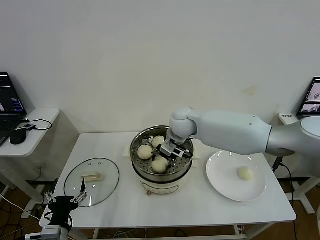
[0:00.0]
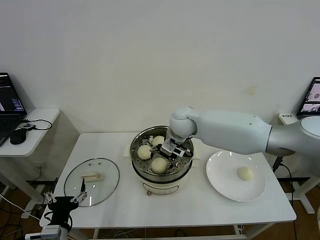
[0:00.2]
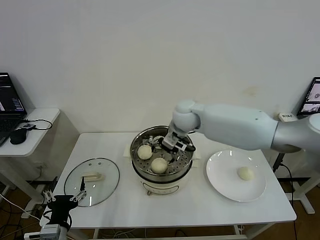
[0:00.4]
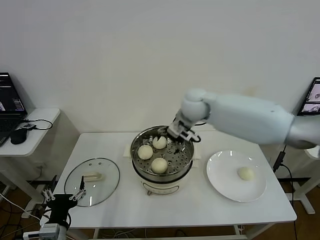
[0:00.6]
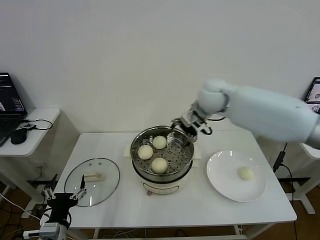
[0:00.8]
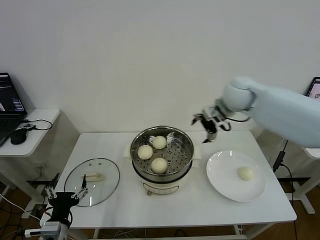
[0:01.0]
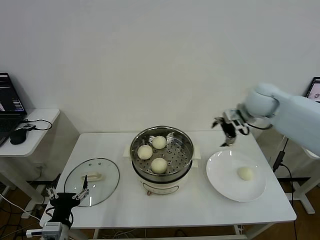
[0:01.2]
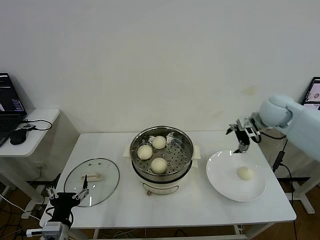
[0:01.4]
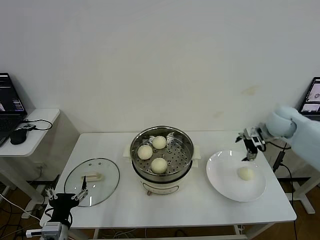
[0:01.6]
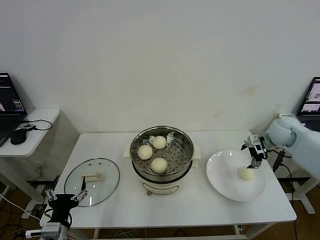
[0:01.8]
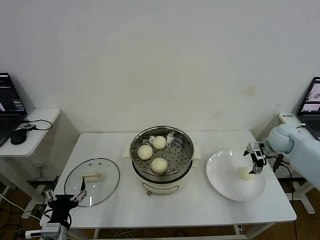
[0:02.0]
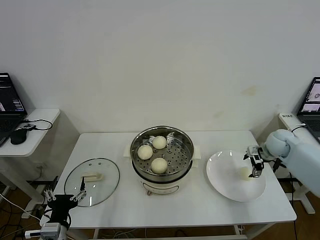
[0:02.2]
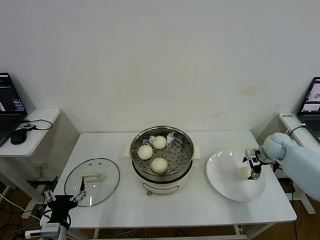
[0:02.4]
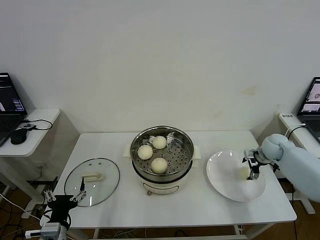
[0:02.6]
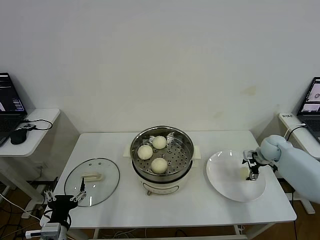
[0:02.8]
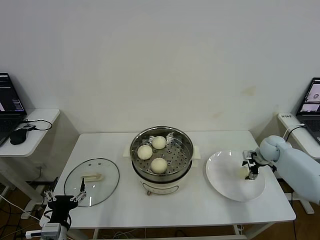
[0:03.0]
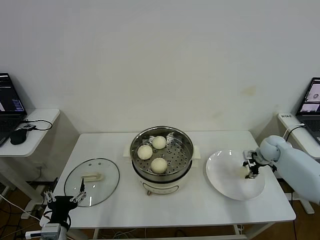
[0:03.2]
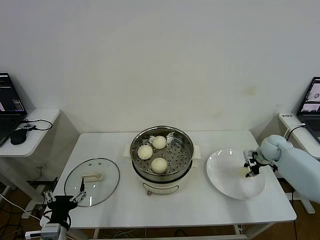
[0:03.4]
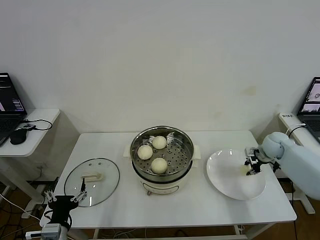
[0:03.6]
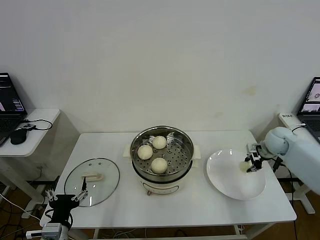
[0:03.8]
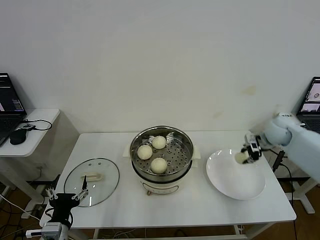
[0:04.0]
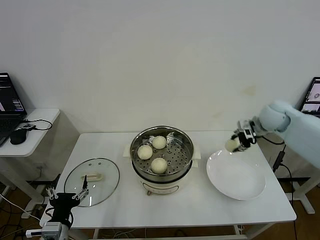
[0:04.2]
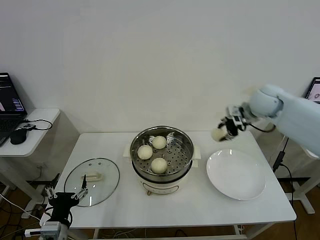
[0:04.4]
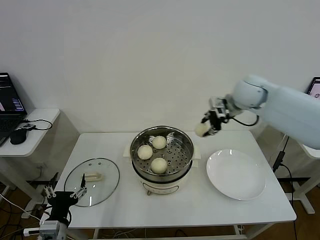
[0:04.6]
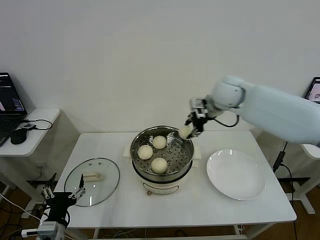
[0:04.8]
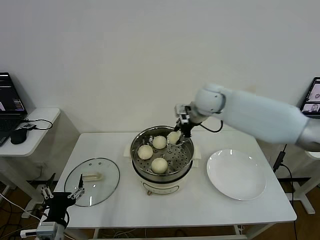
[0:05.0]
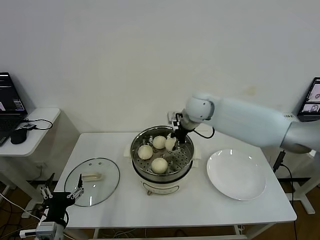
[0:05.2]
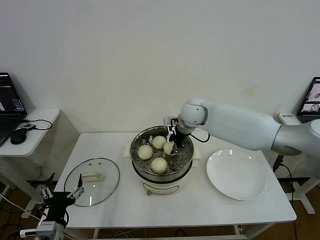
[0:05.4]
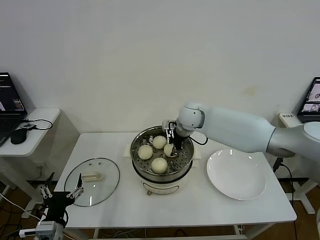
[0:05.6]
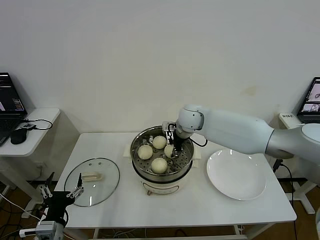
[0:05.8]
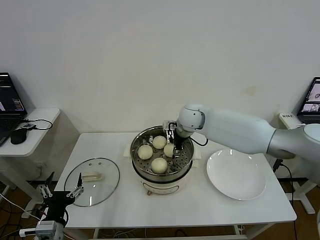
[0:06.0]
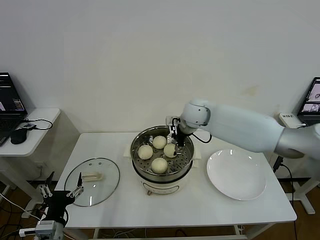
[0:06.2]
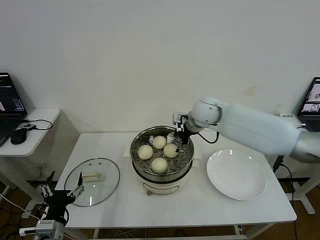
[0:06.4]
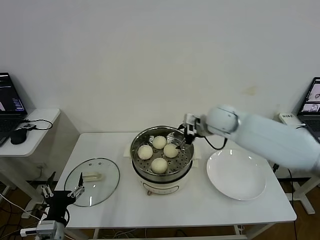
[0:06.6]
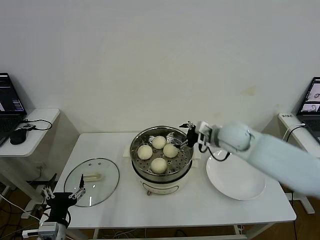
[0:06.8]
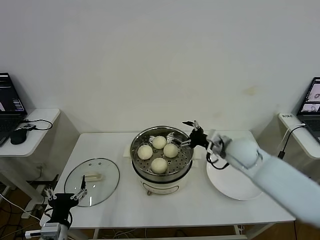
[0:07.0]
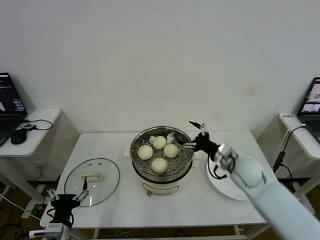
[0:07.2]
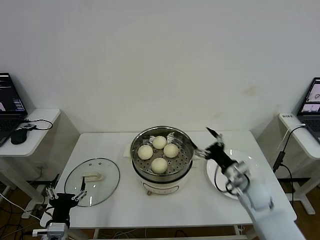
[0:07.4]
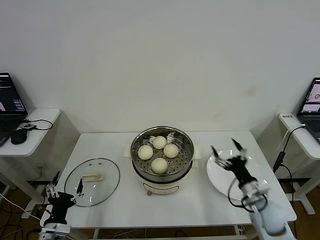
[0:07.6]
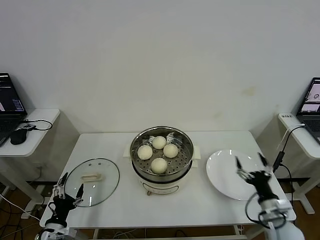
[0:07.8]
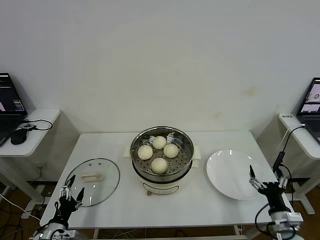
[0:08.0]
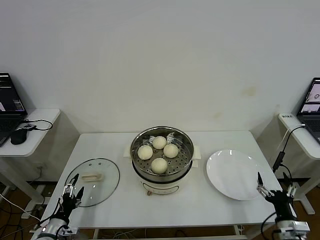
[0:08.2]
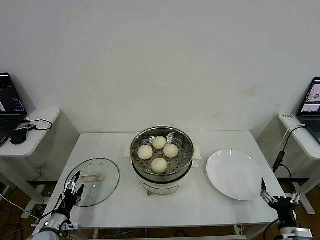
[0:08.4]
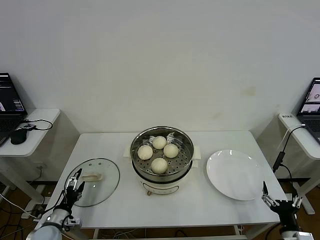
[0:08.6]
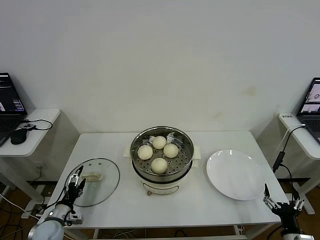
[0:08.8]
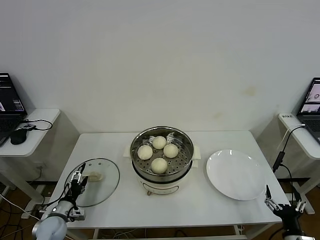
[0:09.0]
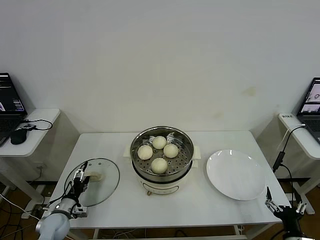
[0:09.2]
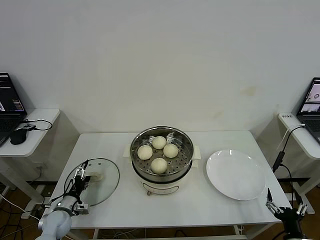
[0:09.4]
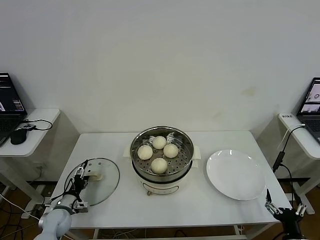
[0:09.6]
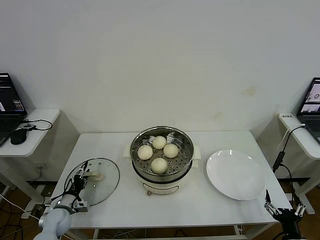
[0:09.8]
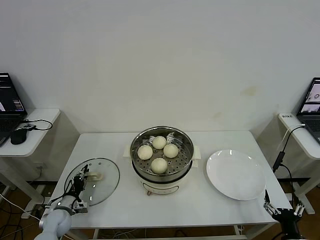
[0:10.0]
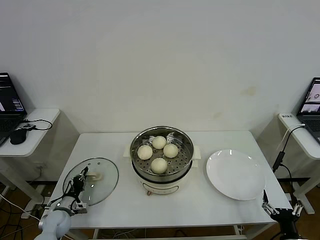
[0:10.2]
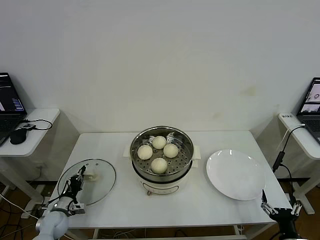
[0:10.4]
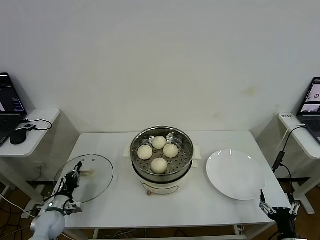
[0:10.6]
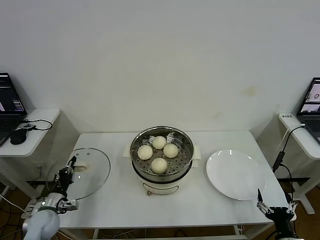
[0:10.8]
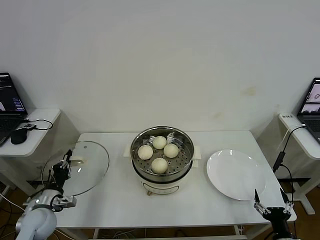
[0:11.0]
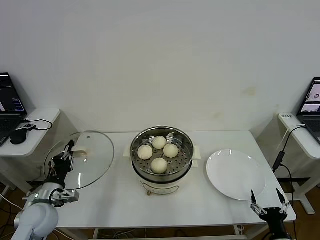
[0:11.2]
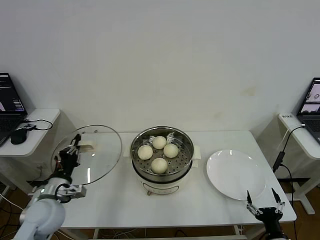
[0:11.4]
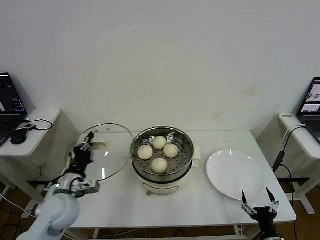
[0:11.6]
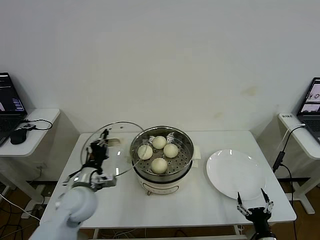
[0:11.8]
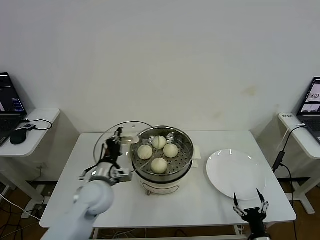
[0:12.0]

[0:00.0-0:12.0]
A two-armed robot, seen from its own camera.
Step, 0:00.4 to 0:03.2: Grasp the baozi in the plate with right gripper.
Step, 0:03.4 to 0:06.0: Place the baozi on the steamer with right gripper.
Step, 0:06.2 to 0:10.4: Grasp the pot lid with left gripper.
0:00.0 to 0:01.6: The right gripper travels to the right by some 35 cm, and opens its fingers.
0:01.6 to 0:03.0: The right gripper is displaced downward by approximately 15 cm, and closes up.
0:03.0 to 0:04.4: The right gripper heads upward and to the left, covering some 25 cm, and closes.
0:04.4 to 0:06.0: The right gripper is displaced to the left and downward by about 20 cm, and opens.
0:06.0 to 0:07.6: The right gripper shifts some 40 cm backward, to the right and downward. The left gripper is displaced downward by some 5 cm.
0:07.6 to 0:09.0: The right gripper travels backward and to the right by about 15 cm. Meanwhile the left gripper goes about 15 cm forward, downward and to the left.
0:09.0 to 0:10.4: The left gripper closes.
0:10.4 to 0:12.0: The left gripper travels upward and to the right by approximately 30 cm. Meanwhile the right gripper goes some 5 cm to the left.

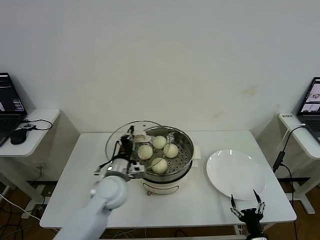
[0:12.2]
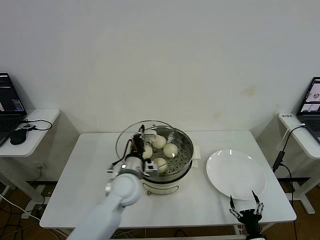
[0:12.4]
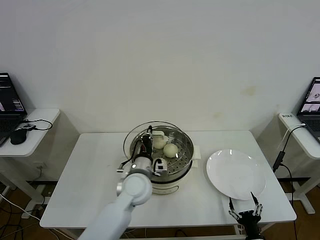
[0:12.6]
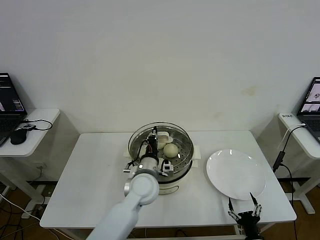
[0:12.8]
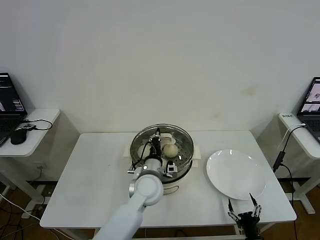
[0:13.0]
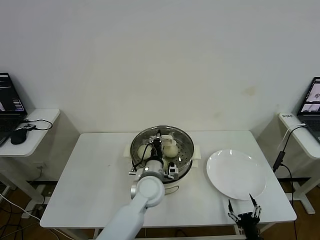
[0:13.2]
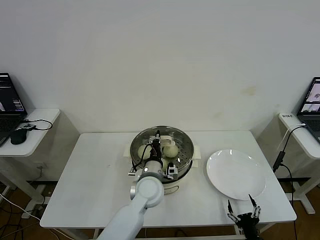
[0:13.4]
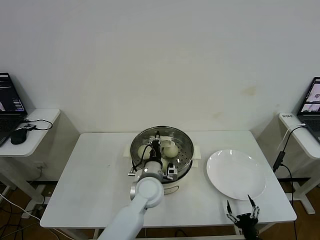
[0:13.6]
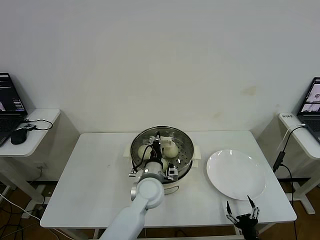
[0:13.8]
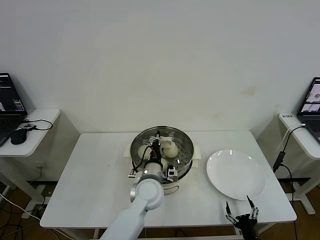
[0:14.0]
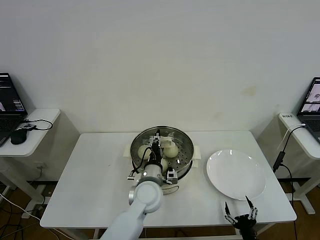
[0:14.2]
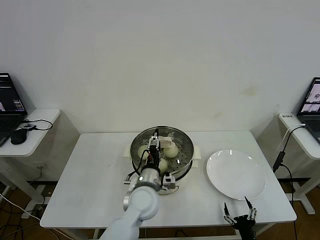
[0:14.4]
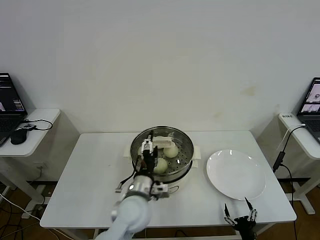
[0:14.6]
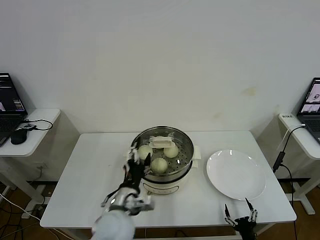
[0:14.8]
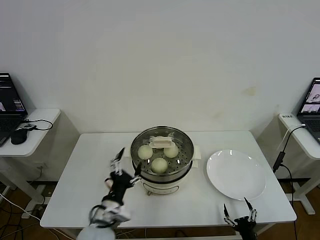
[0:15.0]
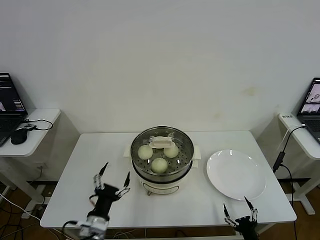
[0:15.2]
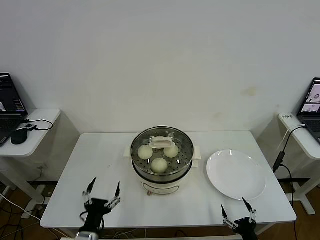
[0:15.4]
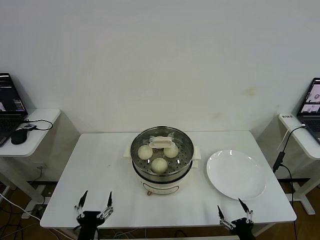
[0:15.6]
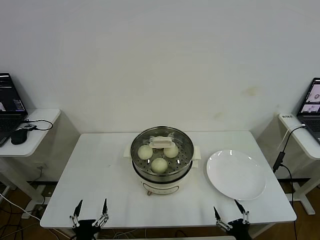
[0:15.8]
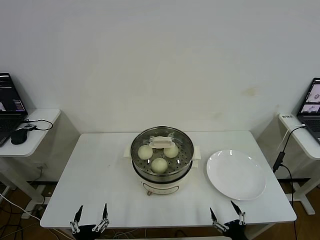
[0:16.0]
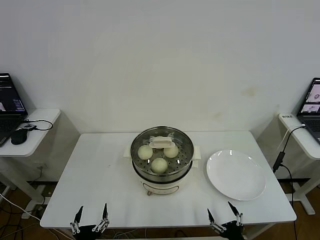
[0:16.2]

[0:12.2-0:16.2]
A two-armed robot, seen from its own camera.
Step, 0:12.2 to 0:14.0: Place the pot lid on the steamer with left gripper.
0:12.2 to 0:13.6: The left gripper moves to the right, roughly 10 cm.
0:13.6 to 0:14.8: The left gripper shifts roughly 15 cm backward and to the left, and opens.
0:14.8 to 0:16.2: The right gripper travels upward by roughly 5 cm. The left gripper goes roughly 25 cm backward, downward and to the left.

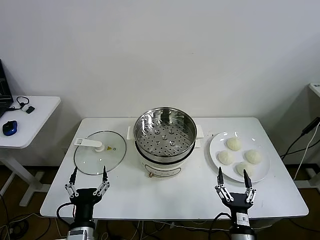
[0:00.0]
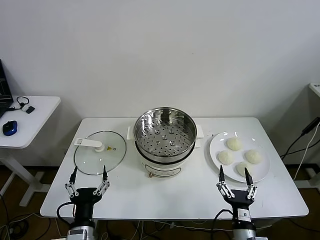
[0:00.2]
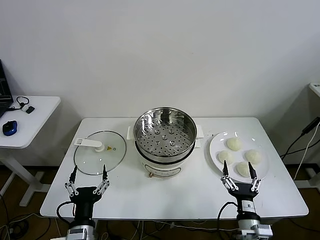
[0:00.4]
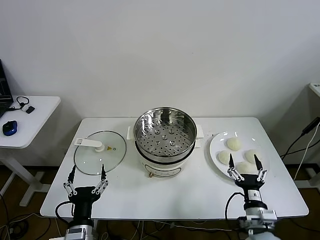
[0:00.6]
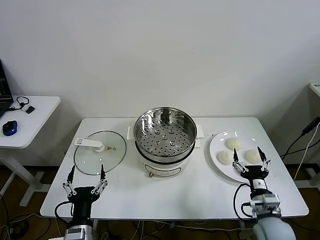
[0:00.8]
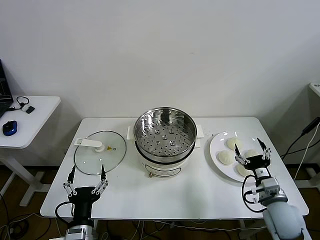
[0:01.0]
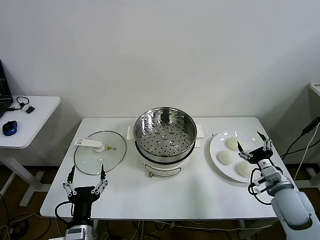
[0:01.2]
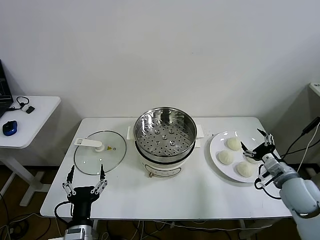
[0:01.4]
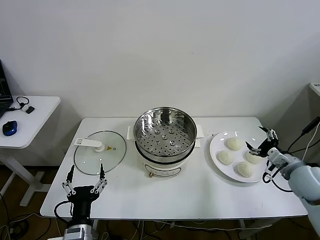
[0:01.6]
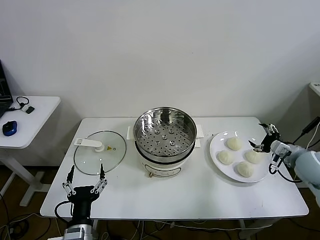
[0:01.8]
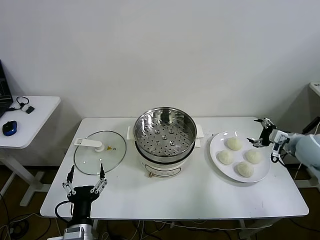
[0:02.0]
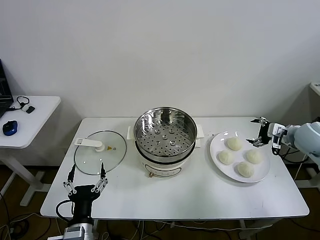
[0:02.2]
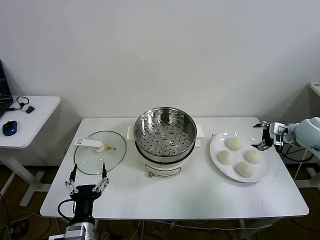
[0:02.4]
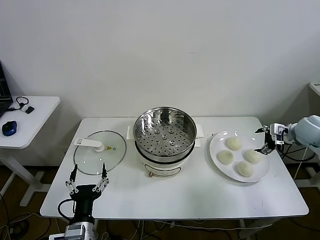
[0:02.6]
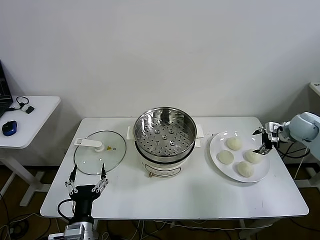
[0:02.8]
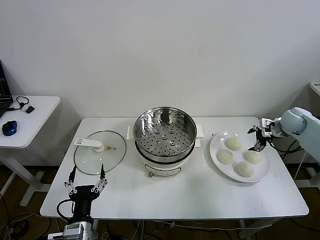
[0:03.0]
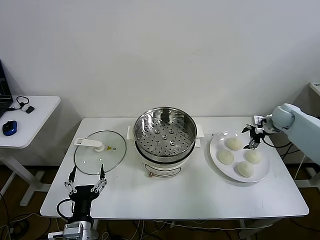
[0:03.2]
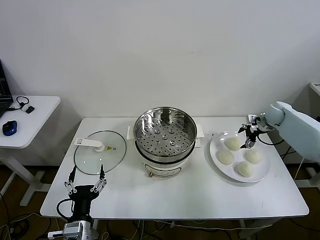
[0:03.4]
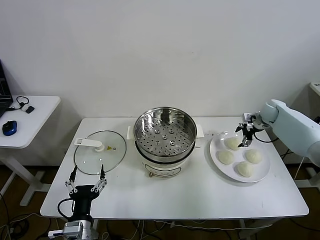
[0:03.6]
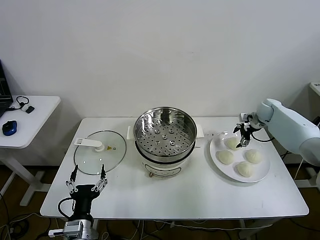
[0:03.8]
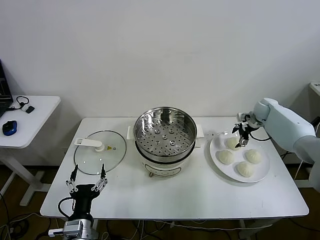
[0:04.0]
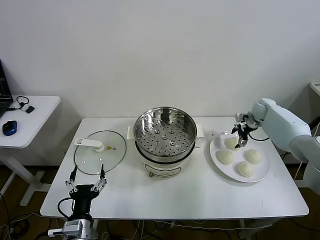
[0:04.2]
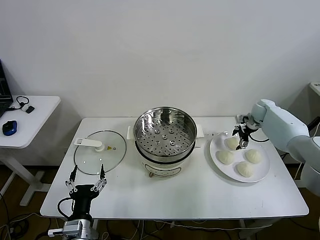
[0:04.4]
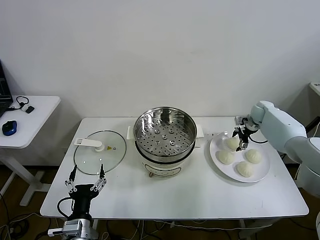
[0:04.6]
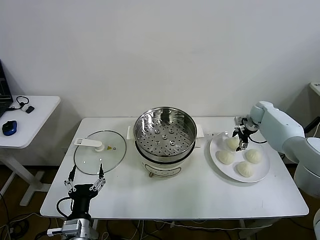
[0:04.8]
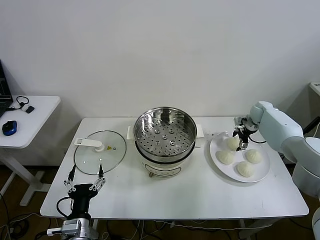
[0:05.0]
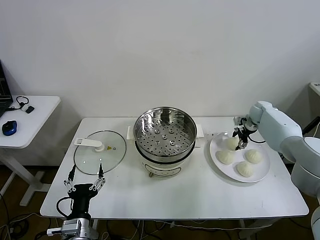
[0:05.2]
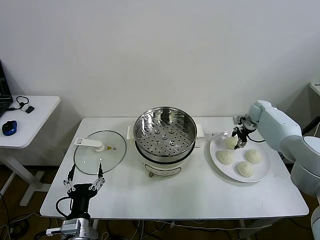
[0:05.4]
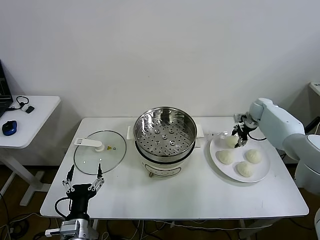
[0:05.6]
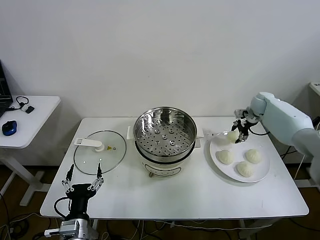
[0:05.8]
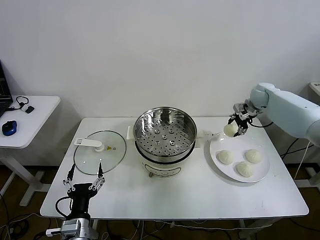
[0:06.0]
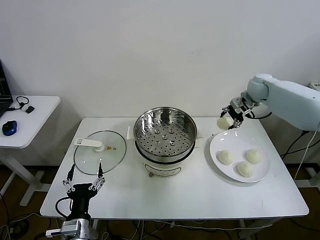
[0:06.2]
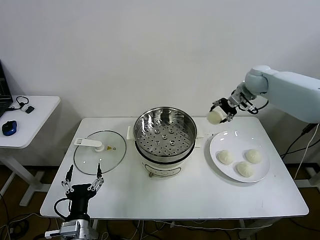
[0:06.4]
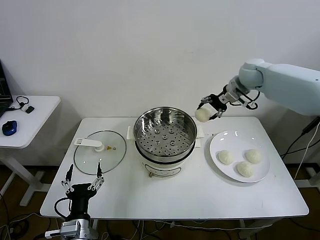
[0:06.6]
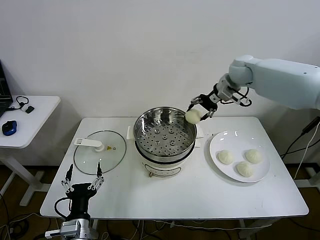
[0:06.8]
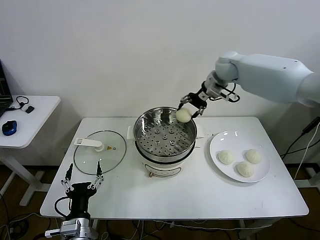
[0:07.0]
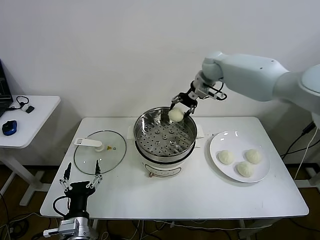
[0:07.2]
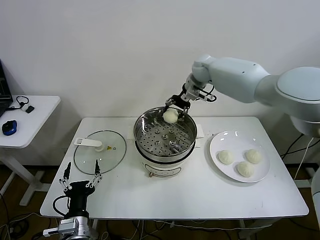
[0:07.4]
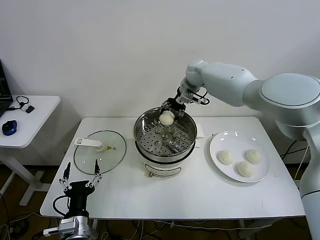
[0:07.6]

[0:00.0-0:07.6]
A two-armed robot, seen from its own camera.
Step, 0:00.0 to 0:05.0: Grasp the baozi in the plate with right gripper.
0:01.6 to 0:03.0: The right gripper shifts approximately 20 cm forward.
0:03.0 to 0:04.6: The right gripper is displaced forward by roughly 10 cm.
0:04.6 to 0:06.0: The right gripper travels upward and to the left by roughly 15 cm, and closes.
0:06.0 to 0:07.6: The right gripper travels to the left by some 25 cm.
